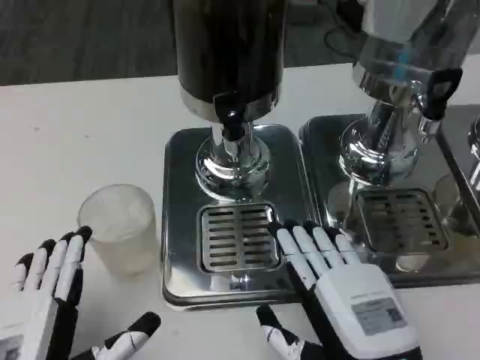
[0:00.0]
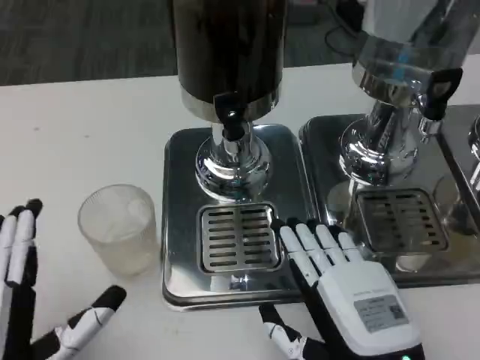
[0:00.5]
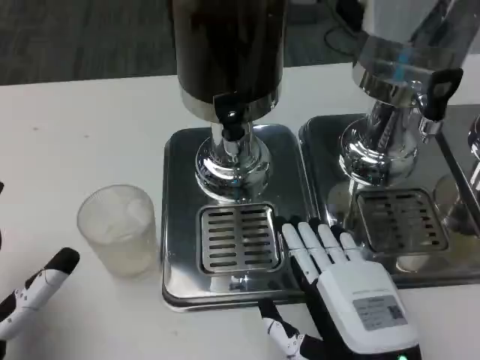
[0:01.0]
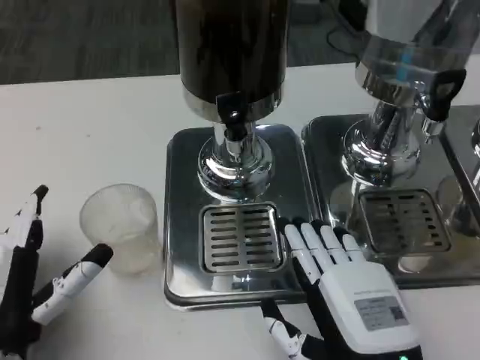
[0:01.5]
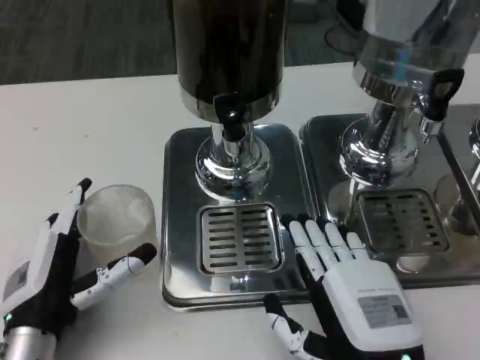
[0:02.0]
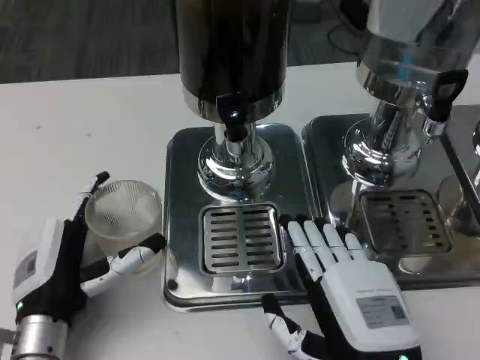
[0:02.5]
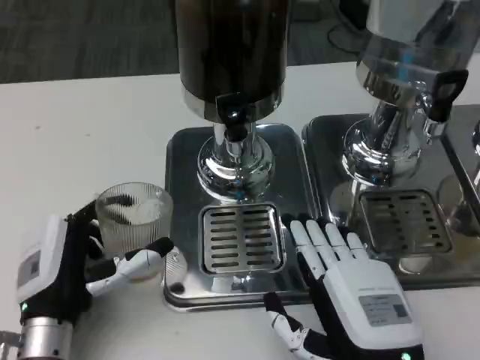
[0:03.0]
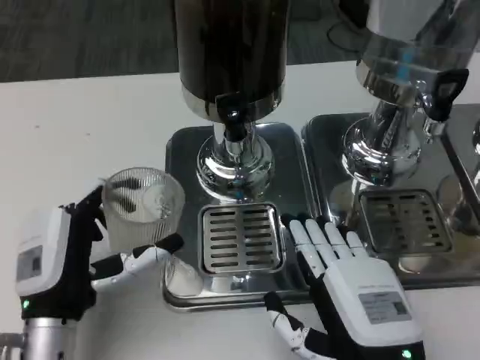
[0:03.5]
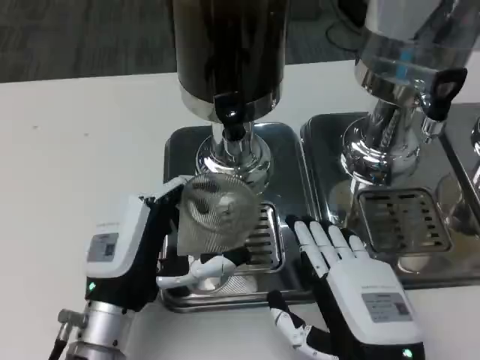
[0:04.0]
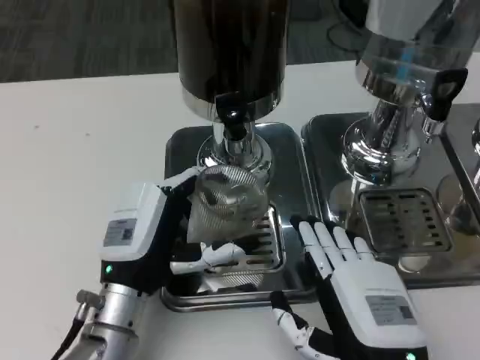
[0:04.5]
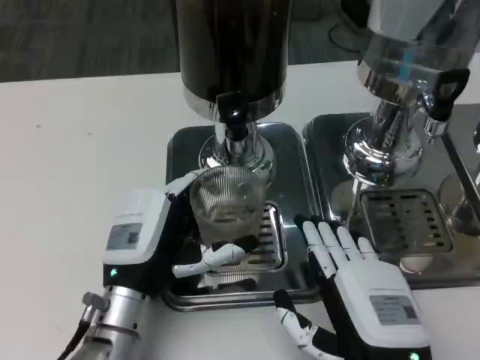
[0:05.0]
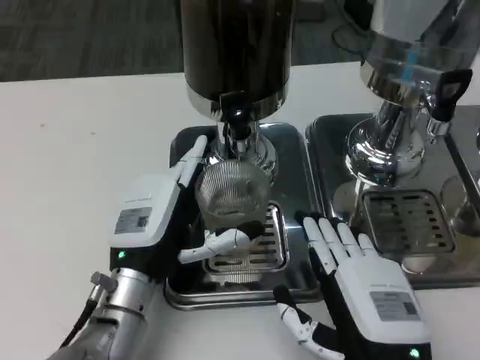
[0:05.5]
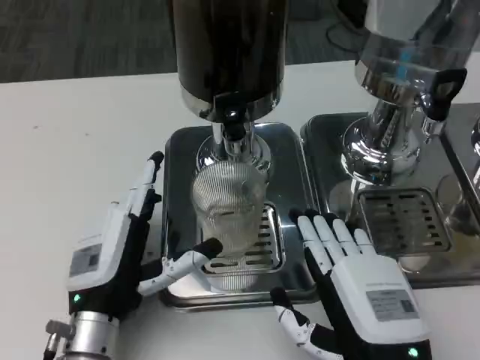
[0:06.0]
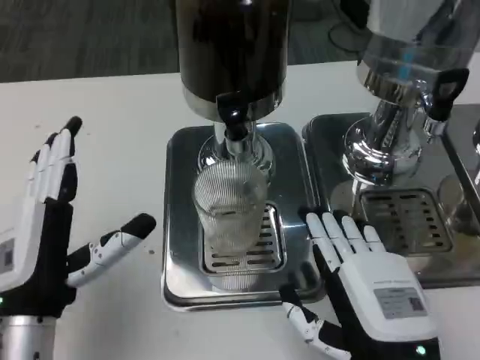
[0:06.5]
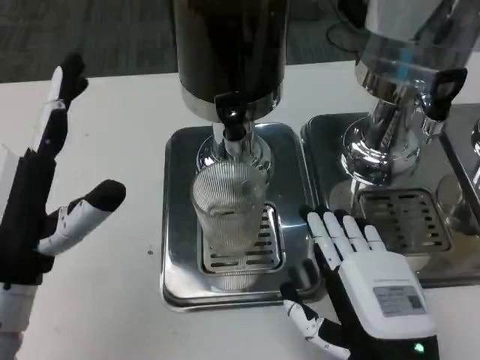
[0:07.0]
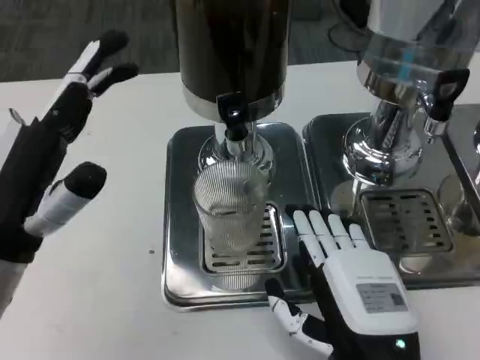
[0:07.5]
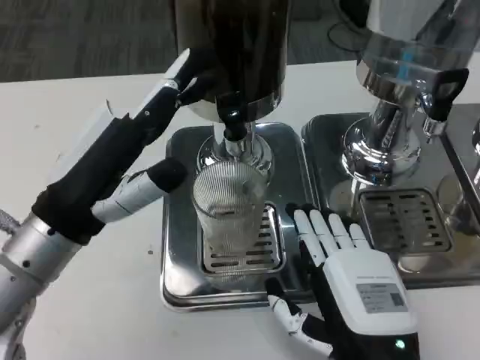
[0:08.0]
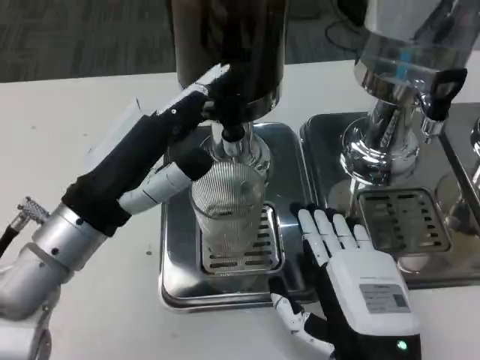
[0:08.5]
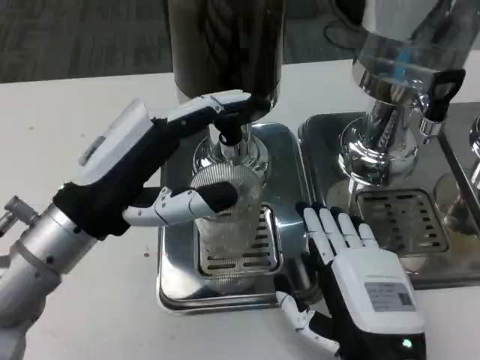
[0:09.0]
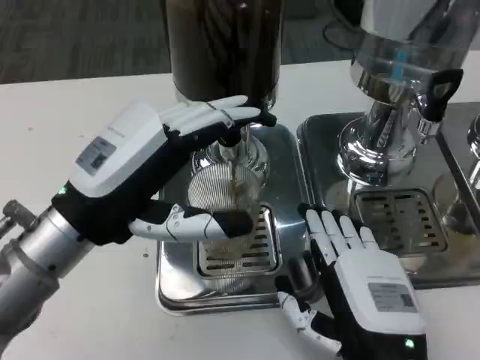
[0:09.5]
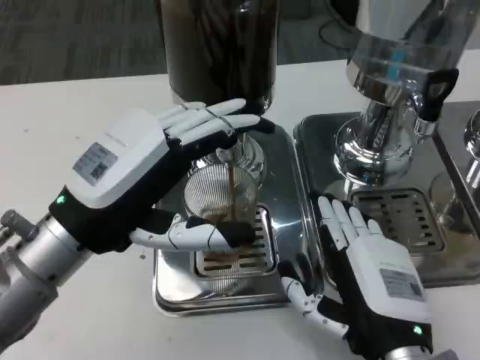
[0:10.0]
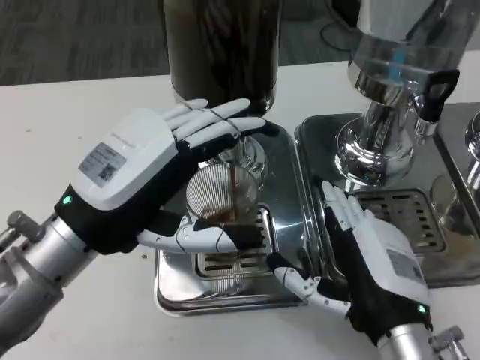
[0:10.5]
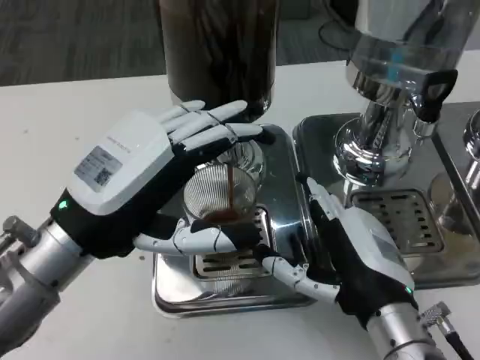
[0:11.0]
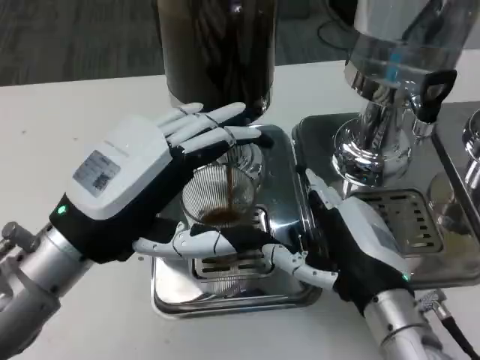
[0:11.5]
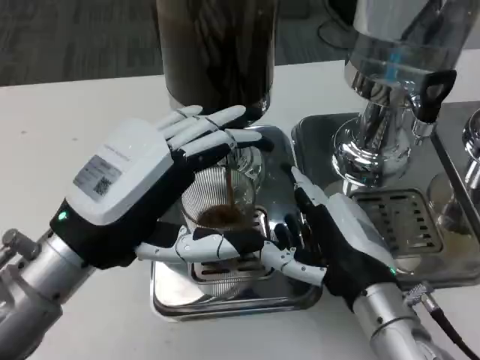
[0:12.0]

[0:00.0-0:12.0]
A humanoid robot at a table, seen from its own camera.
Task of the whole recording: Grasp the cup under the faucet to collect the drink, then remove the cup.
0:00.0 to 0:02.0: The left hand is displaced forward by approximately 10 cm.
0:02.0 to 0:04.0: The left hand moves to the right, some 5 cm.
0:04.0 to 0:06.0: The hands make only small movements.
0:06.0 to 0:08.0: The left hand shifts some 15 cm upward.
0:10.0 to 0:12.0: The right hand is displaced forward by some 5 cm.

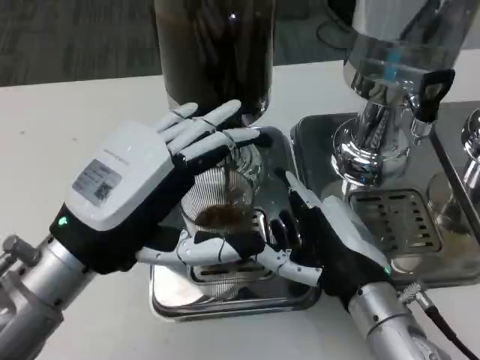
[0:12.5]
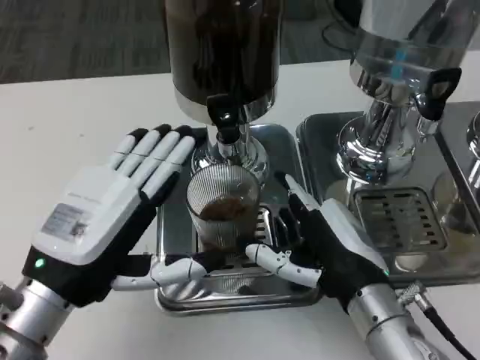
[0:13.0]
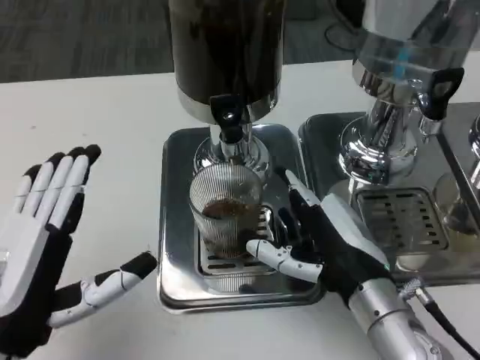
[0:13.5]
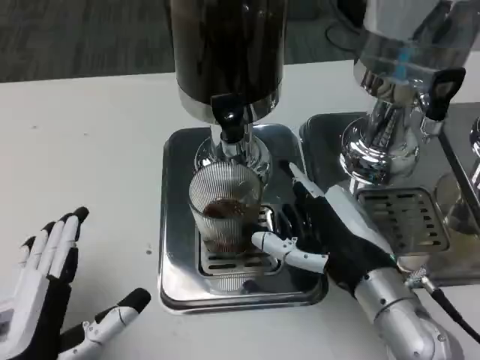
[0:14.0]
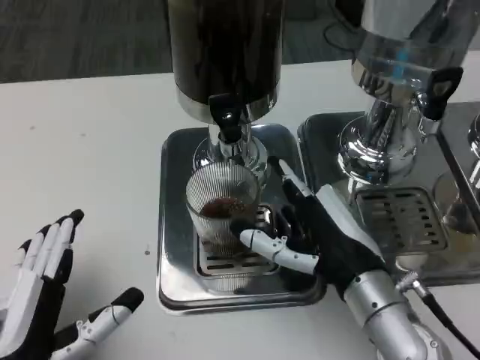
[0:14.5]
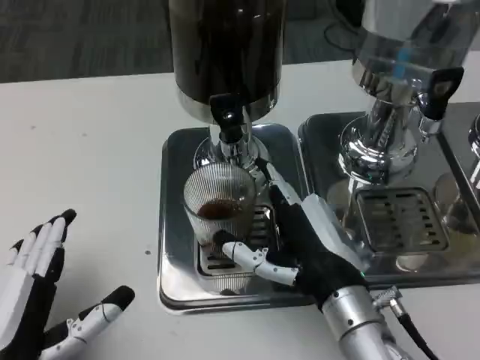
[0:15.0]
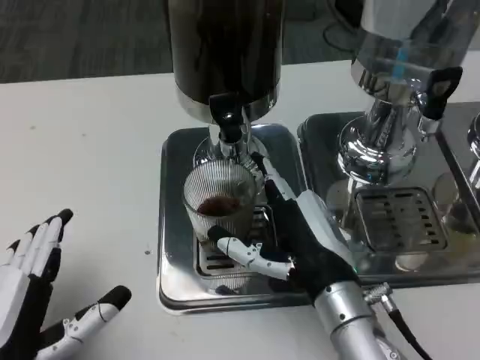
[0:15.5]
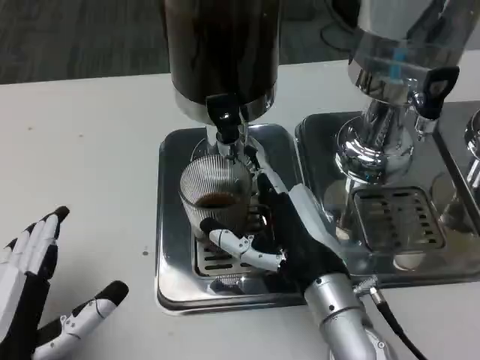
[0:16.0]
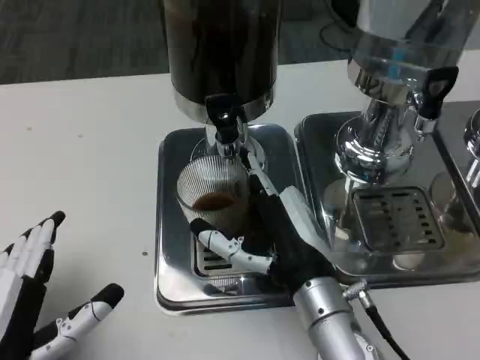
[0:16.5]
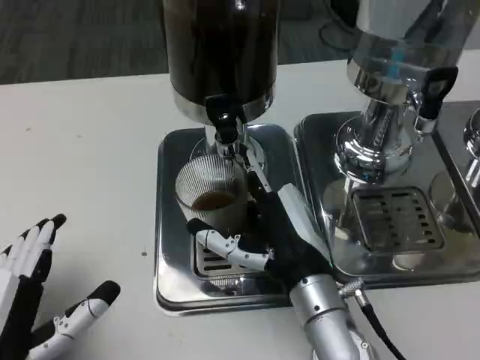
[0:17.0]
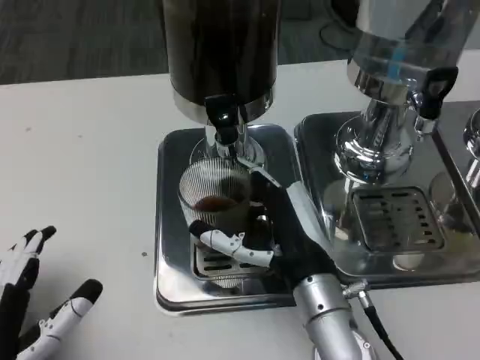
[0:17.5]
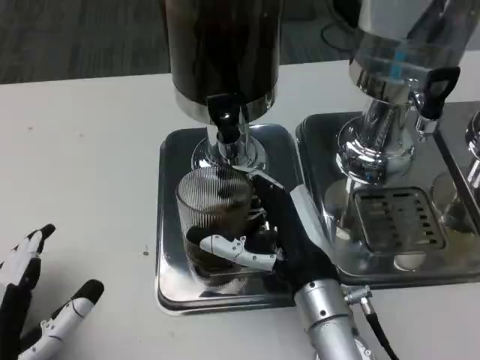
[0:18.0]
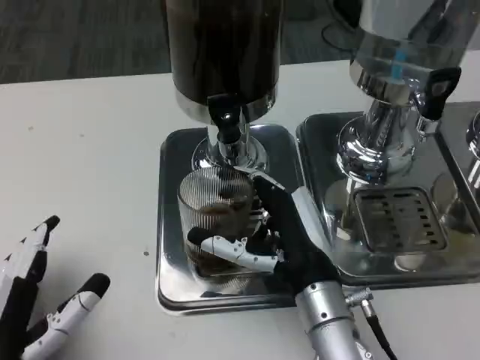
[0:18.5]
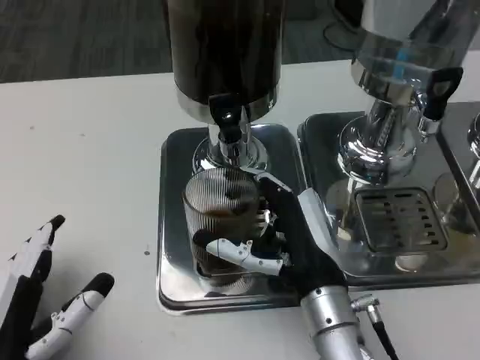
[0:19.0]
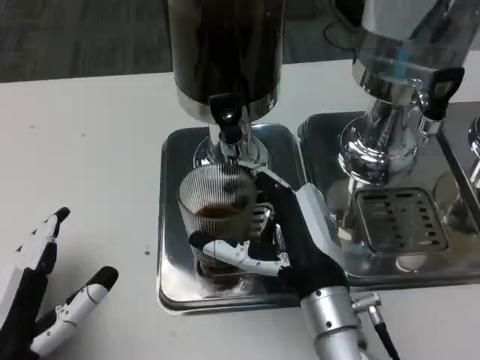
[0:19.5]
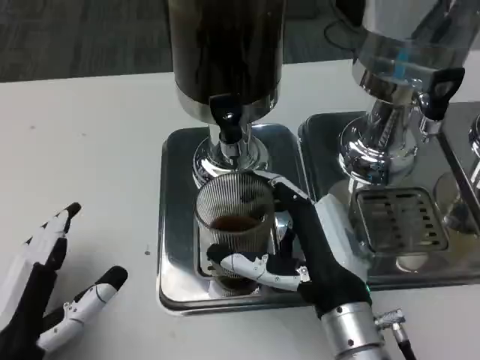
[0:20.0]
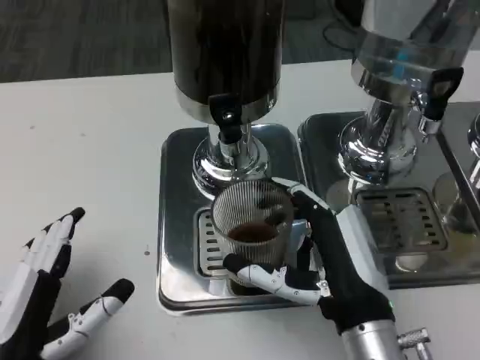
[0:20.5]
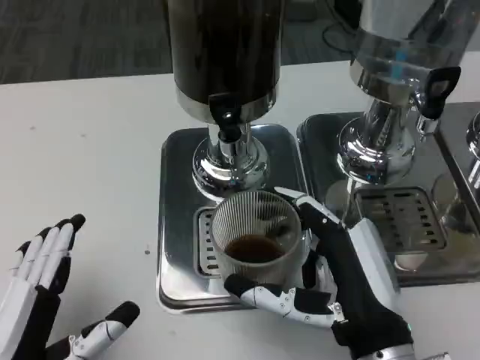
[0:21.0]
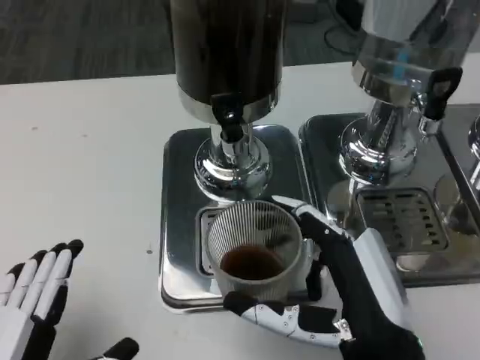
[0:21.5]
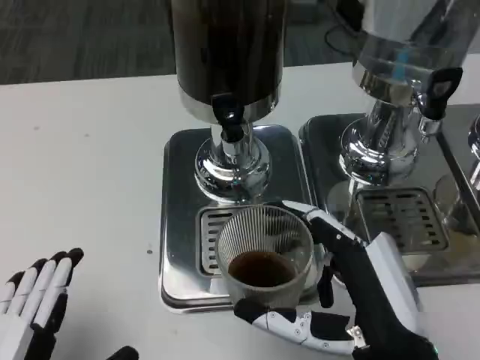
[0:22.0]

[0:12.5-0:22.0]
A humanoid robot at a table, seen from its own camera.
Task of the whole recording: Grasp the cup under the faucet to collect the drink, then remove the cup.
0:12.5 to 0:14.5: The left hand moves backward and downward, about 15 cm.
0:14.5 to 0:16.5: The right hand ends up roughly 5 cm from where it was.
0:16.5 to 0:18.0: The hands stay close to where they were, moving slightly.
0:20.0 to 0:22.0: The two hands go approximately 5 cm backward.

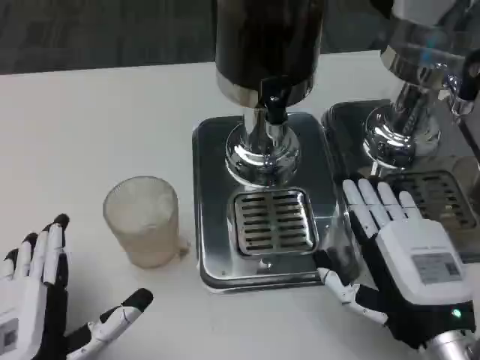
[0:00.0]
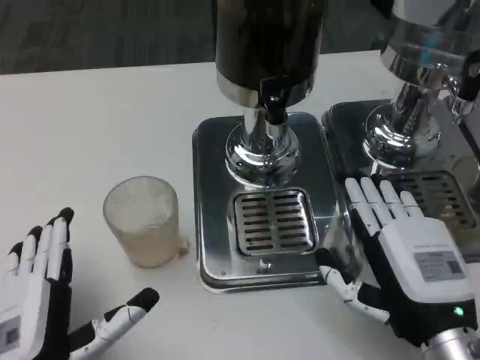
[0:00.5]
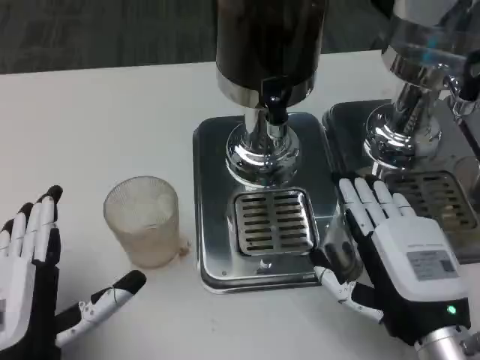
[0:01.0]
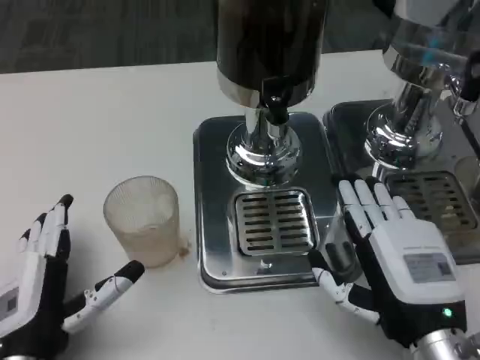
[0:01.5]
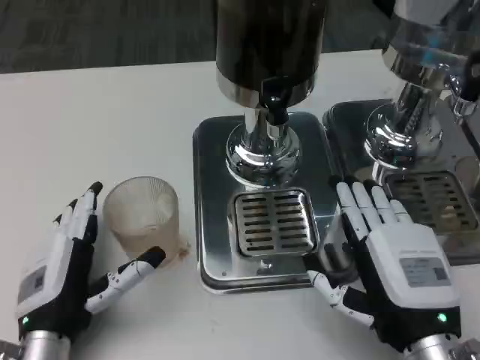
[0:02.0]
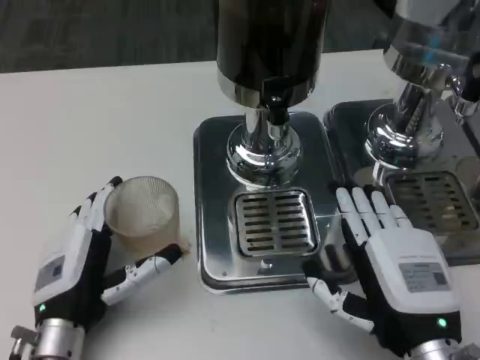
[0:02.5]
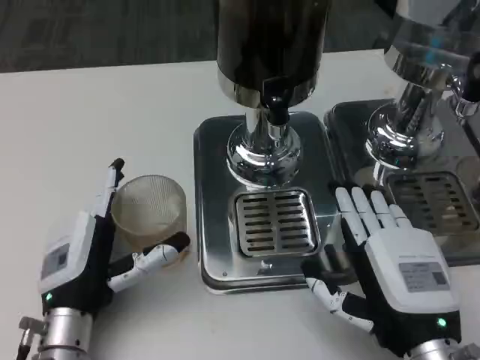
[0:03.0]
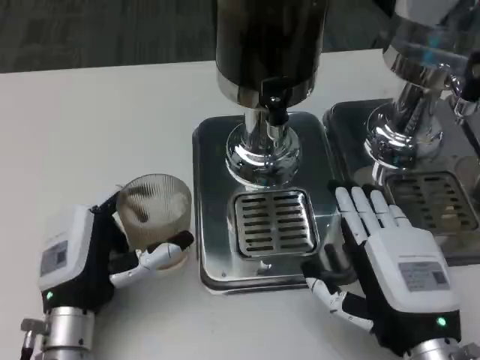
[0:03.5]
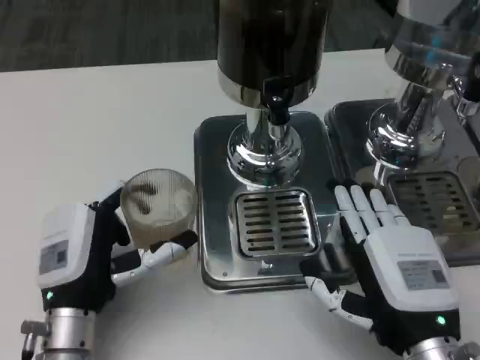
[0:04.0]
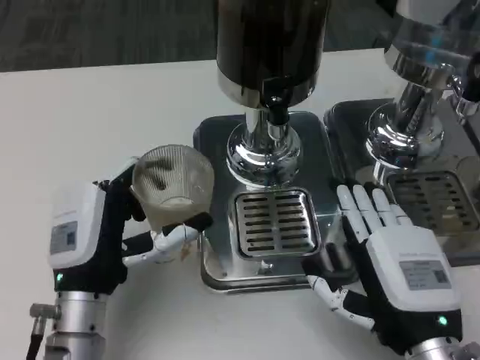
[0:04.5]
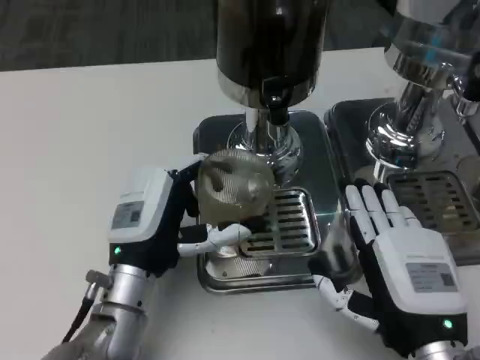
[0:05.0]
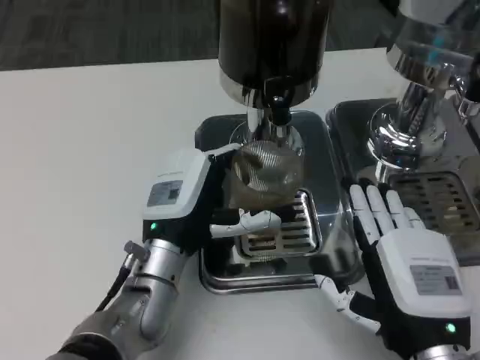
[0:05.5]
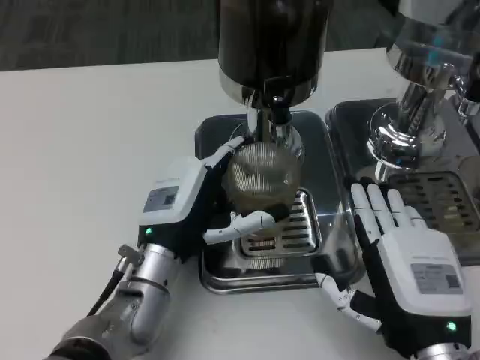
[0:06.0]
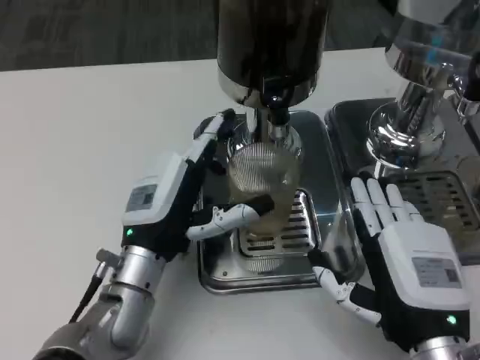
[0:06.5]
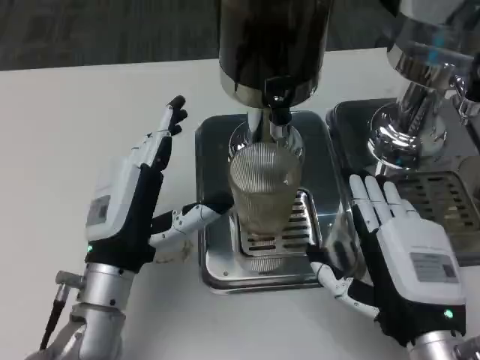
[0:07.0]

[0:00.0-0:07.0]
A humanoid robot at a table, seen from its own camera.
Task of the whole recording: Grasp the cup under the faucet to collect the drink, then remove the cup.
0:00.0 to 0:02.0: The left hand travels forward by some 5 cm.
0:02.0 to 0:03.5: There are only small adjustments of the hands.
0:03.5 to 0:05.0: The left hand moves some 5 cm.
